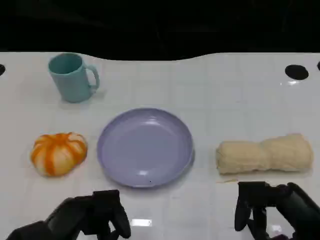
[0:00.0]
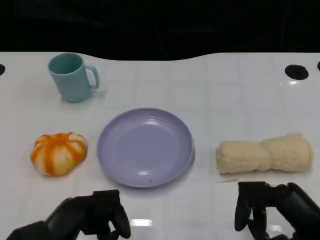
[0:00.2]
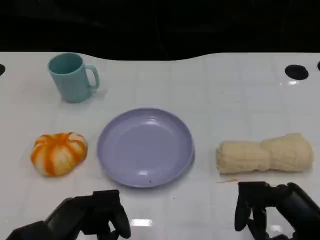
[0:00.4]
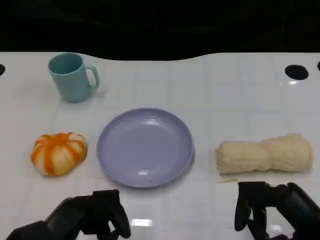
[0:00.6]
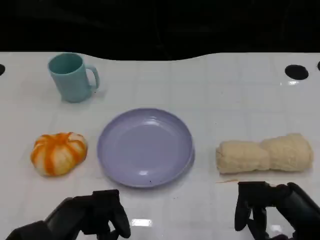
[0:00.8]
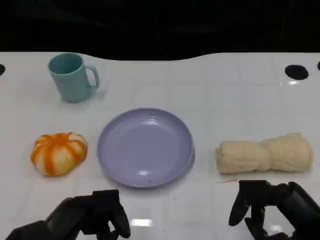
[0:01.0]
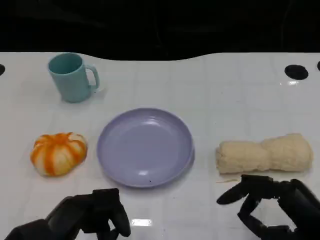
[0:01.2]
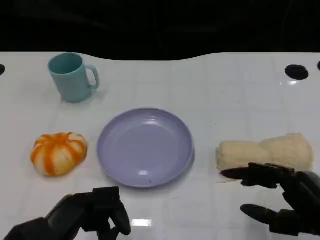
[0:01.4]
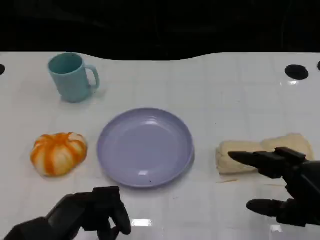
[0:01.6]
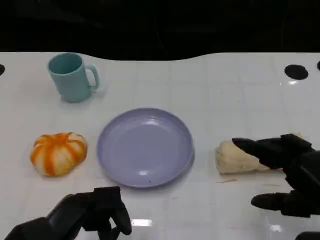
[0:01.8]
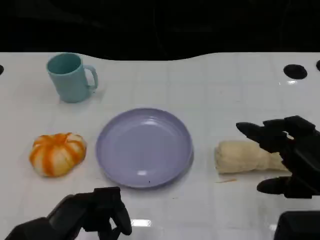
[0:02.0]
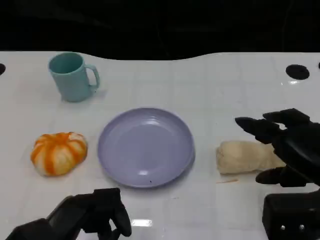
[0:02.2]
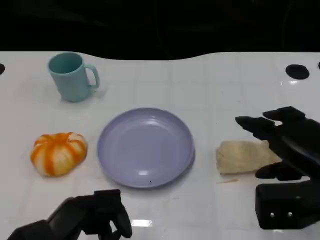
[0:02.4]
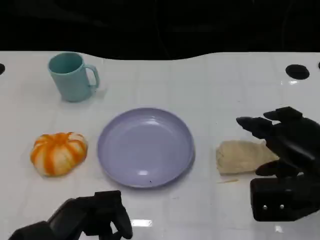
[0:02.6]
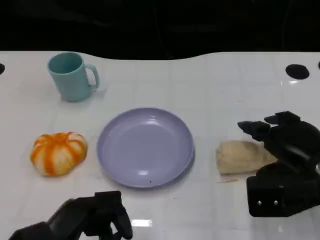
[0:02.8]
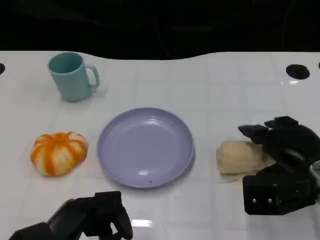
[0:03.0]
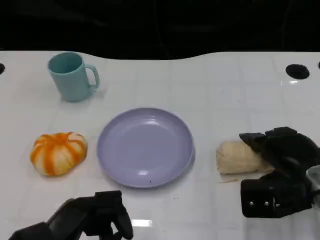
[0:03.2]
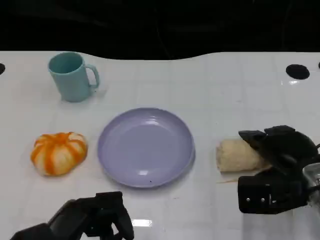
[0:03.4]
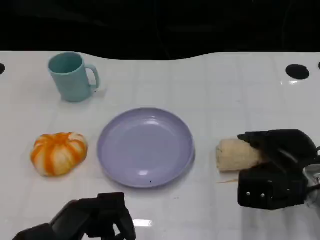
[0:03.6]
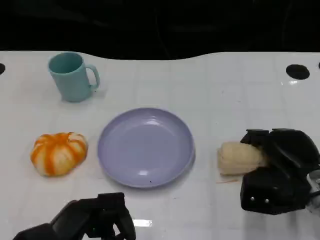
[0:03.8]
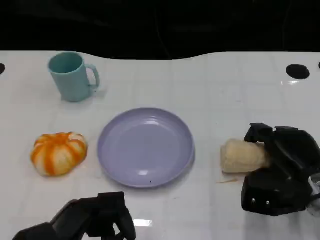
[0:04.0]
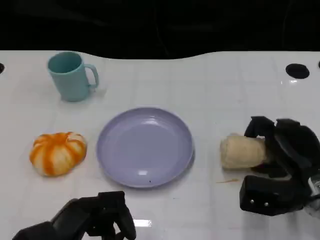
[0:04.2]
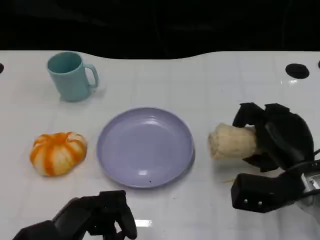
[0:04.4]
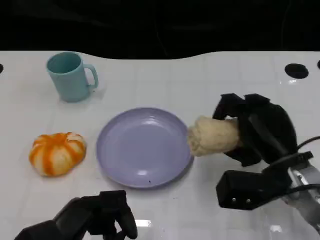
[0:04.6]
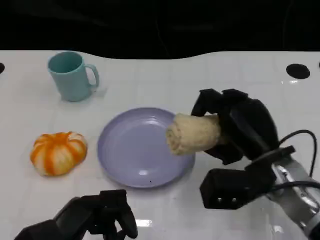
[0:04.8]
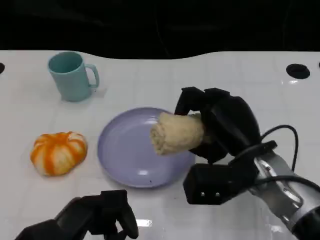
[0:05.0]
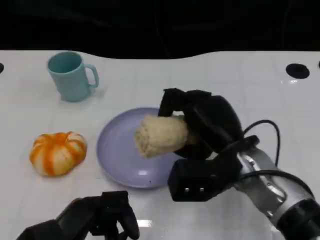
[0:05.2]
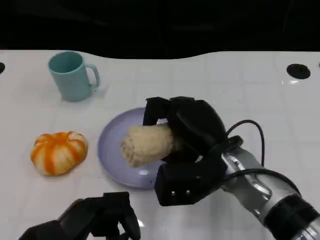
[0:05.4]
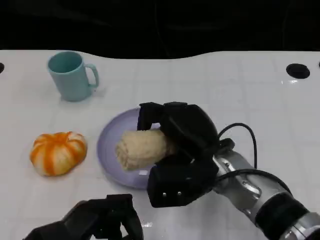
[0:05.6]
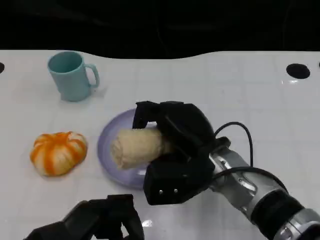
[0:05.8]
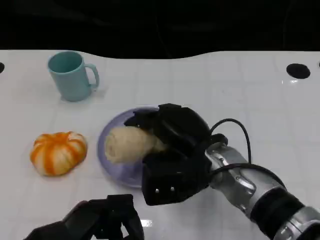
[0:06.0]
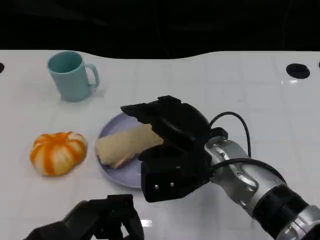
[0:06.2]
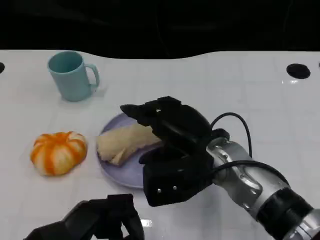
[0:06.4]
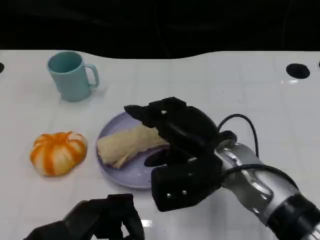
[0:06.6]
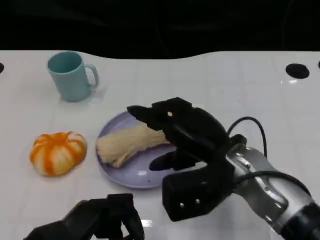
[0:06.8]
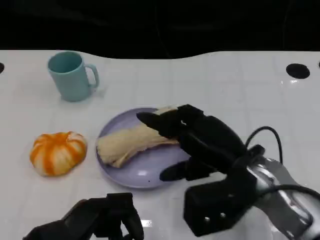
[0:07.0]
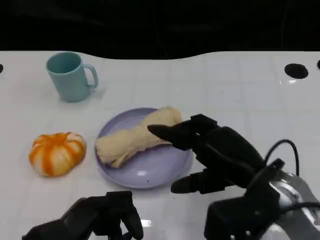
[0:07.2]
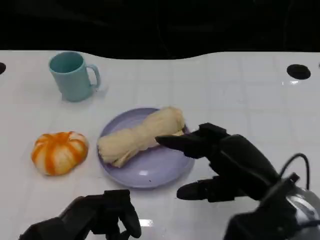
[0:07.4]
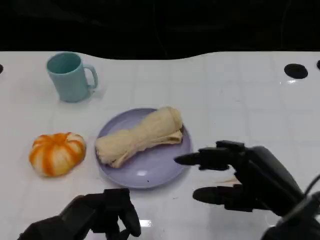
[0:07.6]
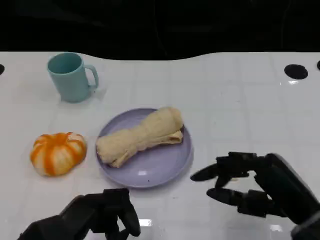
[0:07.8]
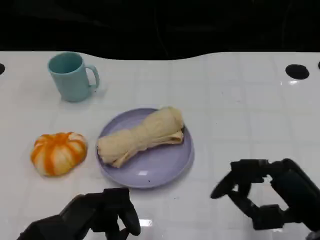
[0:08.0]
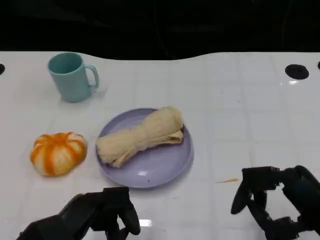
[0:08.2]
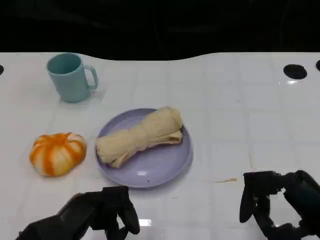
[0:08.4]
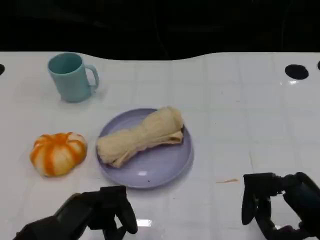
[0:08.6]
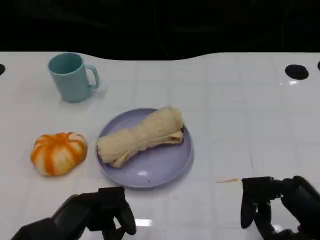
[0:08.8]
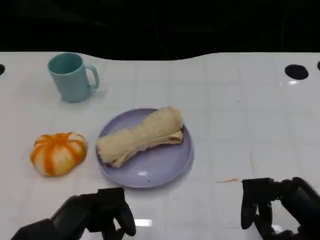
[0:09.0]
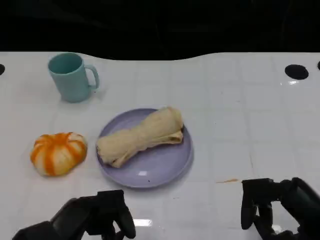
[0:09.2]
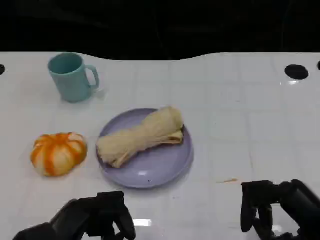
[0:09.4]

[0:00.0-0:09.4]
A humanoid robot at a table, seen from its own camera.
Task of the whole recording: Grasp the towel on the left side of the plate with the left hand and place it into the plate.
0:01.6 to 0:03.2: The right hand heads forward, covering roughly 10 cm.
0:03.2 to 0:04.8: The right hand shifts some 5 cm to the left.
0:04.8 to 0:06.2: The right hand travels to the left by roughly 10 cm.
0:06.2 to 0:07.8: The right hand is displaced to the right and backward by approximately 15 cm.
0:07.8 to 0:09.4: The hands move only a little.
